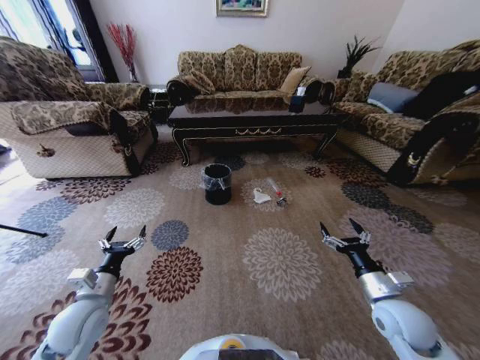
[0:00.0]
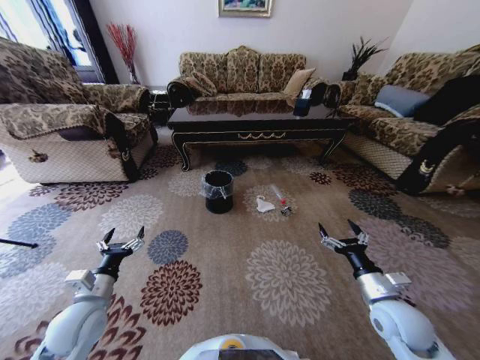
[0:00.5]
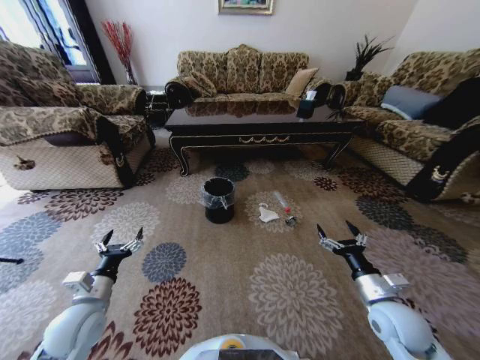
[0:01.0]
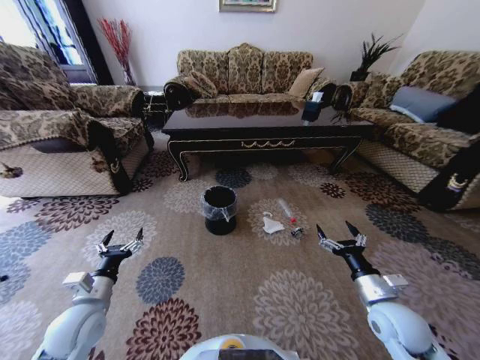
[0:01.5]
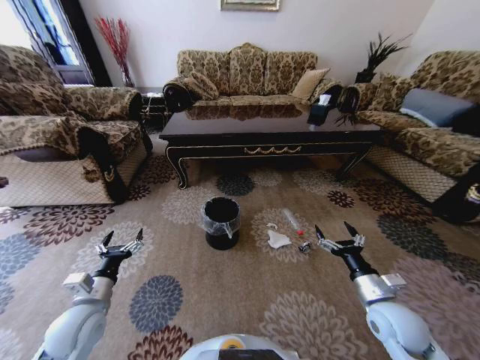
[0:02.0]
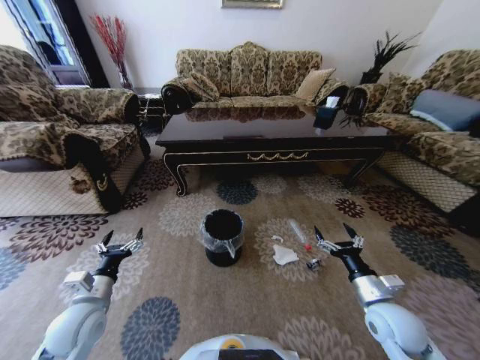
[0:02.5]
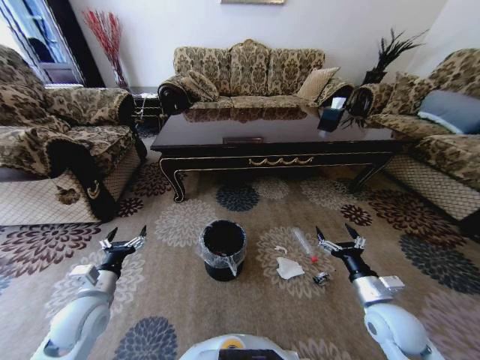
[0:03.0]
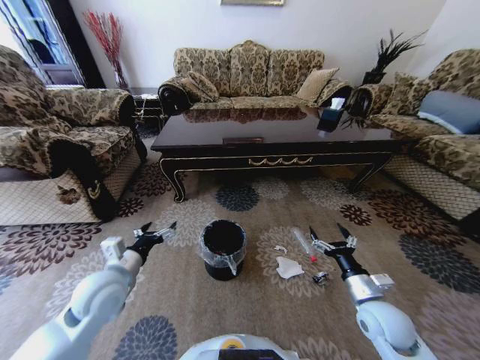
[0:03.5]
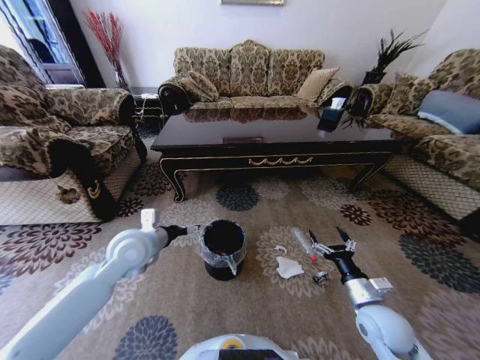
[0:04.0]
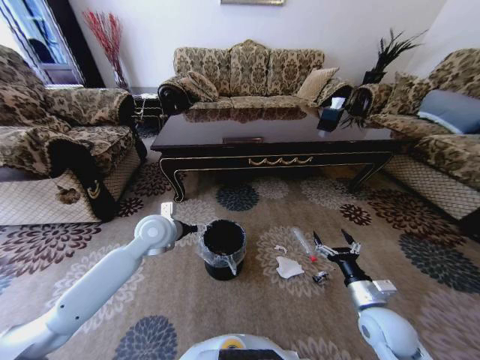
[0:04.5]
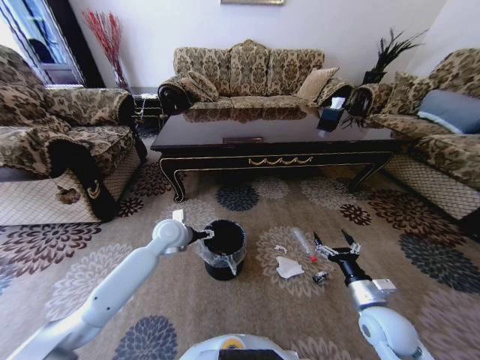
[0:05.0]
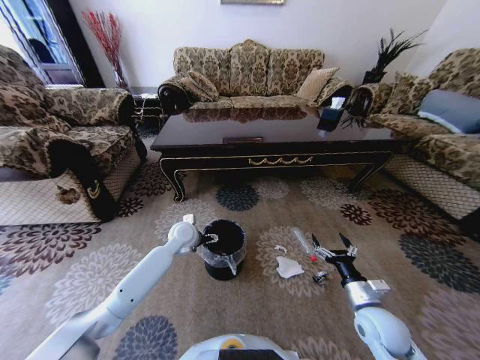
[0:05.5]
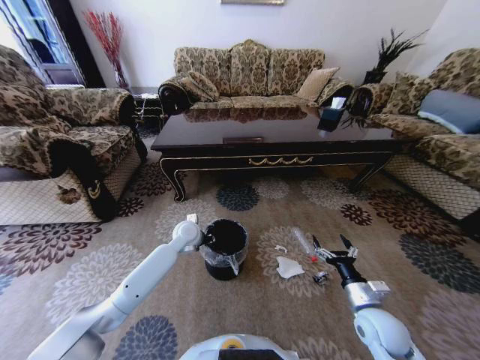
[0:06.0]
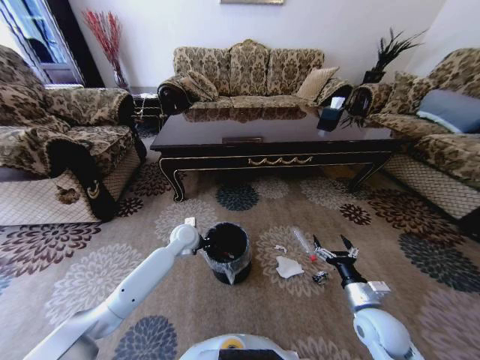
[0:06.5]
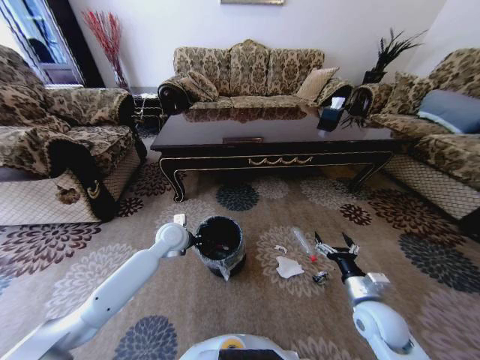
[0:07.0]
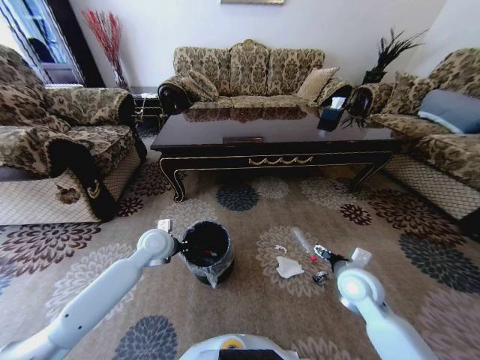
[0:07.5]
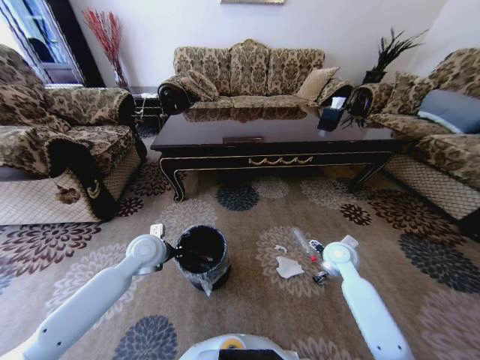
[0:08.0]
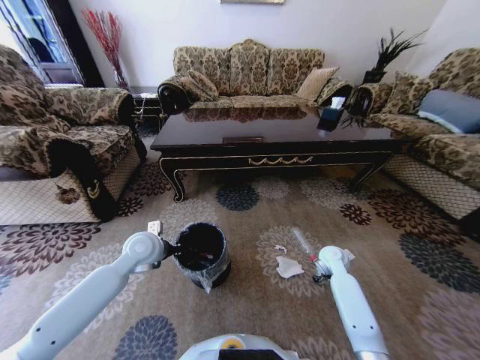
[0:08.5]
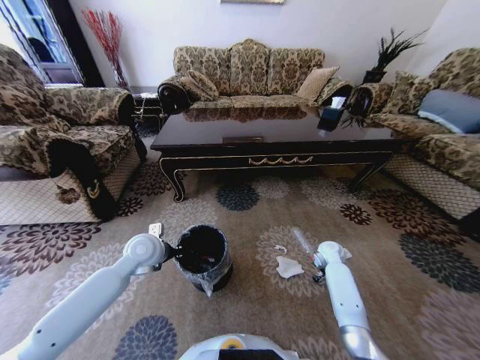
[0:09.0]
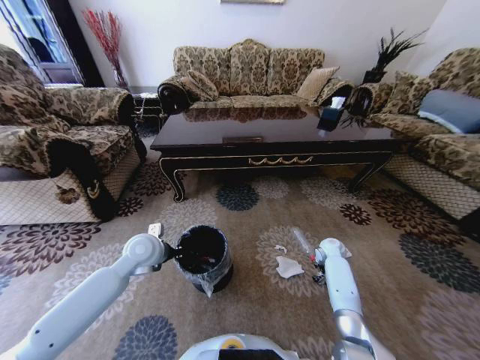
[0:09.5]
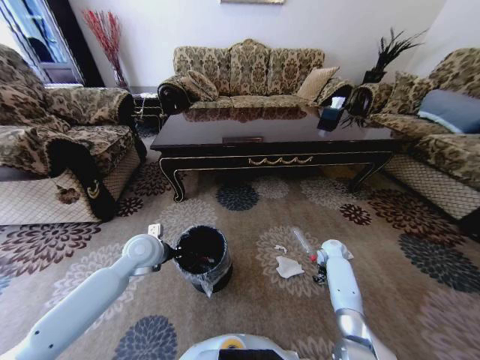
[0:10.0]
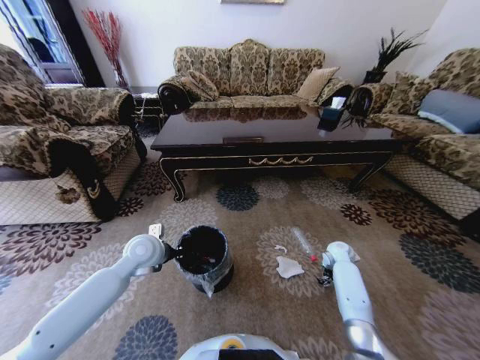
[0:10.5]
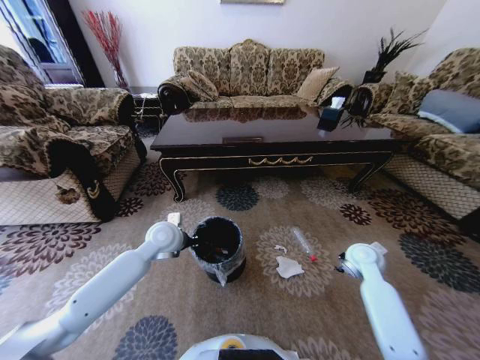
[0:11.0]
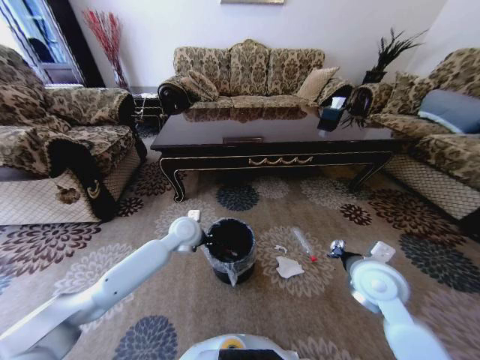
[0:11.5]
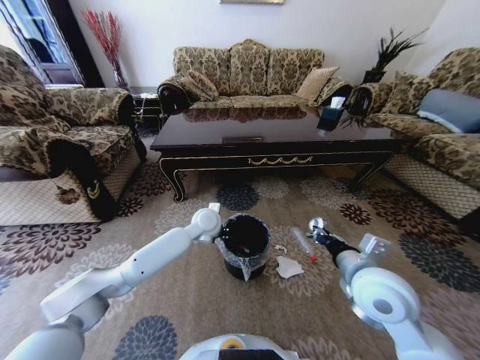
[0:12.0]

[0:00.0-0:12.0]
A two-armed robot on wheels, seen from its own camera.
Task of the whole recording: Move to the front of the table and pick up the trash from the floor, then place it into the trash bin.
0:02.0 to 0:04.0: The left gripper moves forward, upward and to the right, about 20 cm.
0:04.0 to 0:06.0: The left gripper goes roughly 20 cm forward, downward and to the right, and closes its fingers.
0:06.0 to 0:08.0: The left gripper moves backward, to the left and upward, approximately 15 cm, and closes, while the right gripper moves forward, about 15 cm.
0:08.0 to 0:10.0: The right gripper travels downward, forward and to the right by about 20 cm, and closes.
0:10.0 to 0:12.0: The right gripper heads upward, backward and to the left, covering some 40 cm; the left gripper travels to the right and forward by some 20 cm.

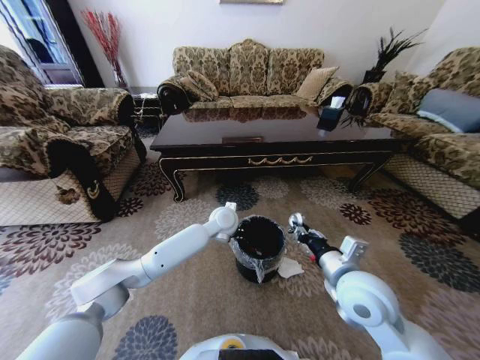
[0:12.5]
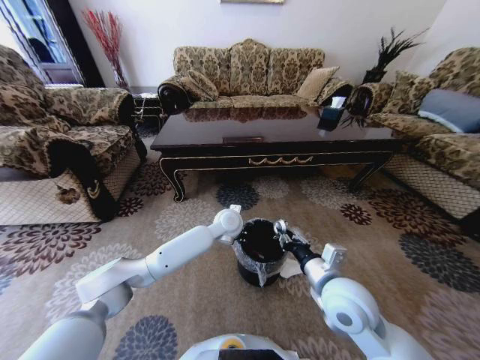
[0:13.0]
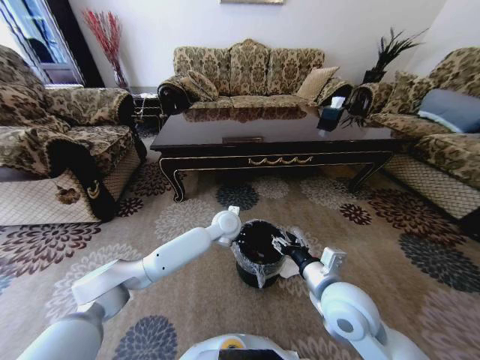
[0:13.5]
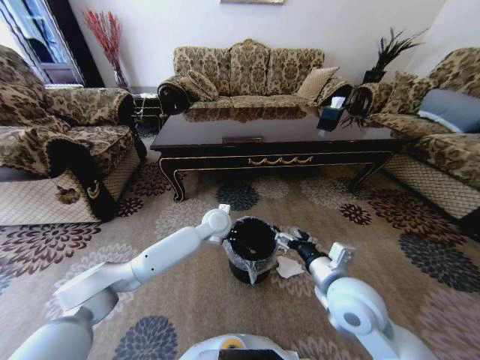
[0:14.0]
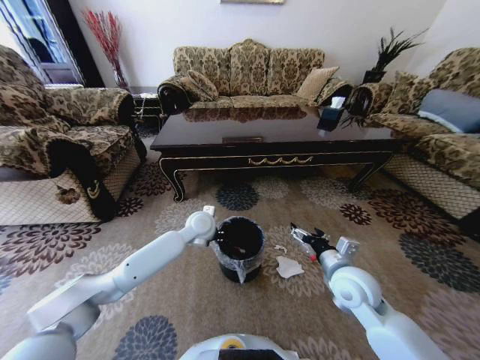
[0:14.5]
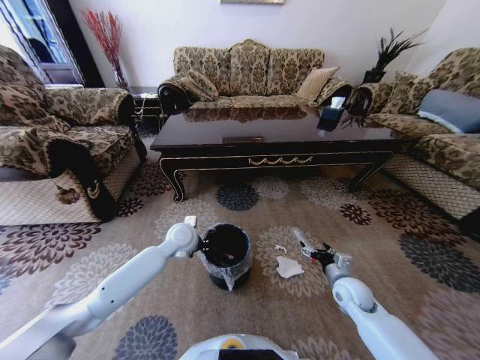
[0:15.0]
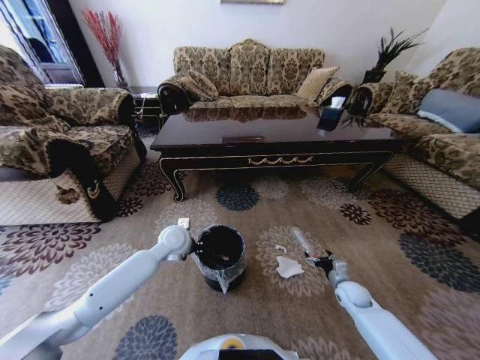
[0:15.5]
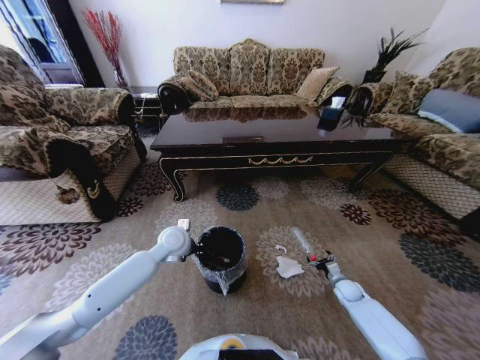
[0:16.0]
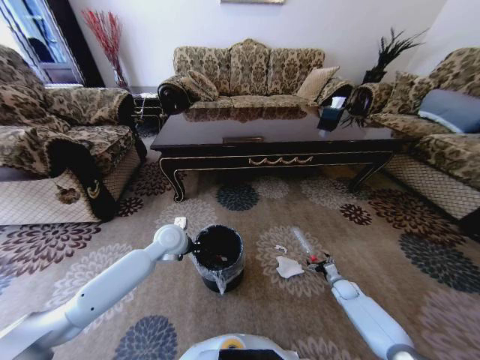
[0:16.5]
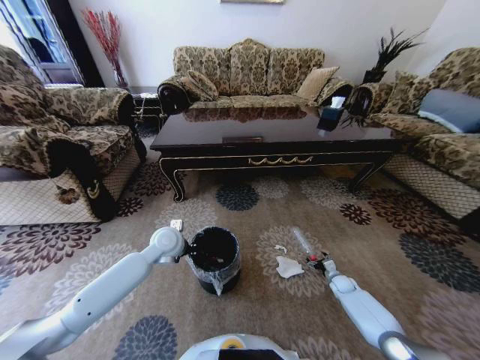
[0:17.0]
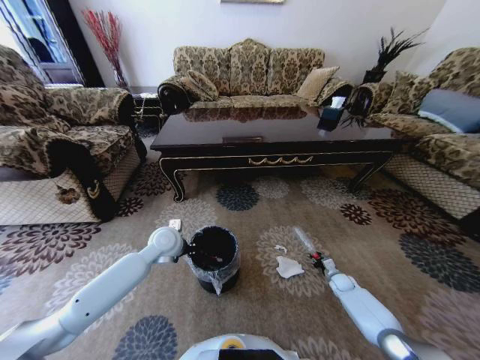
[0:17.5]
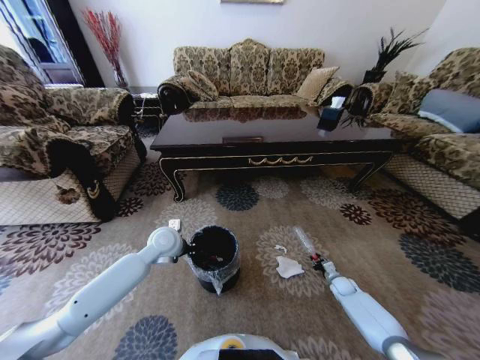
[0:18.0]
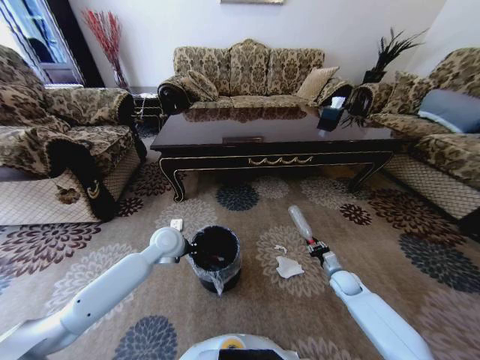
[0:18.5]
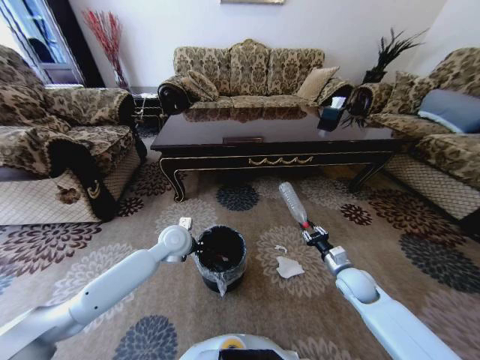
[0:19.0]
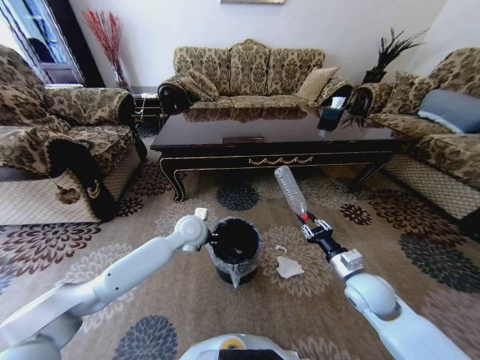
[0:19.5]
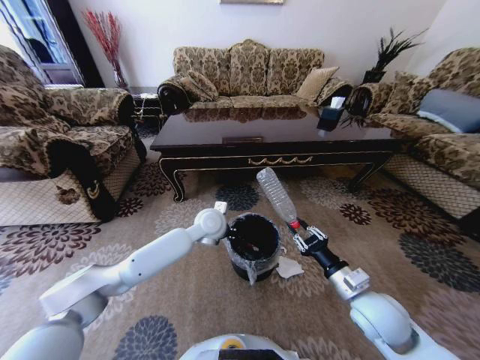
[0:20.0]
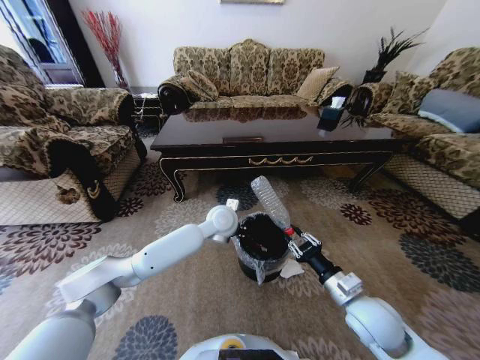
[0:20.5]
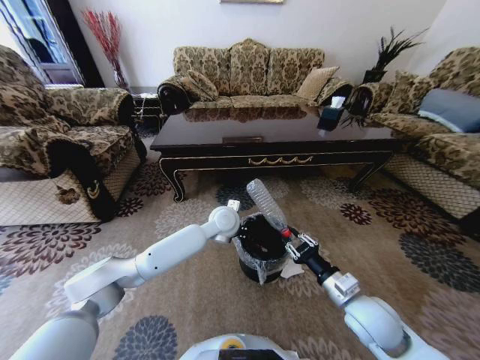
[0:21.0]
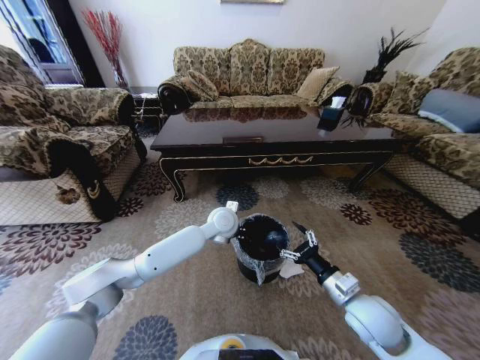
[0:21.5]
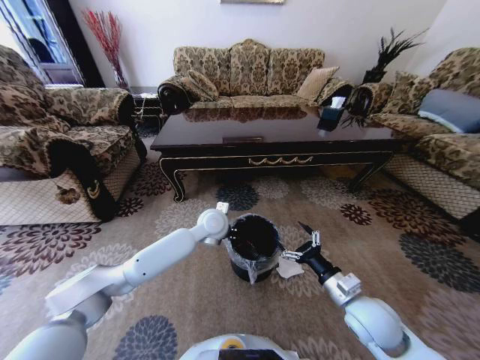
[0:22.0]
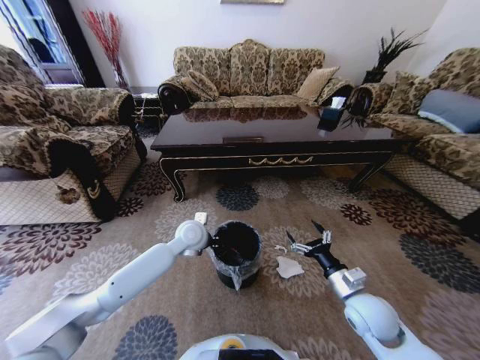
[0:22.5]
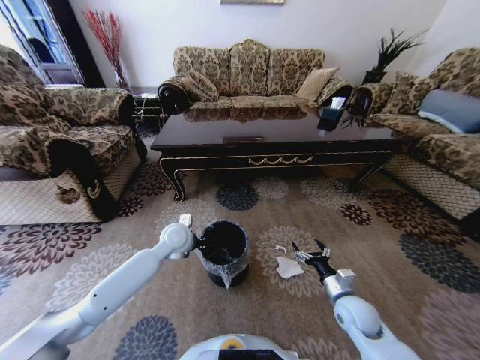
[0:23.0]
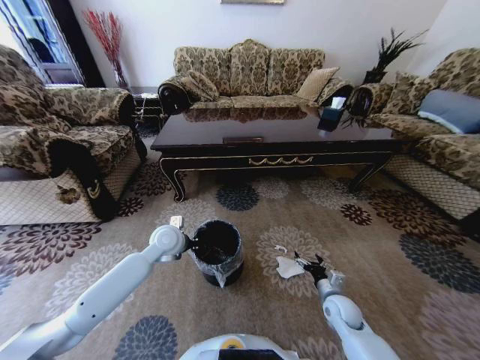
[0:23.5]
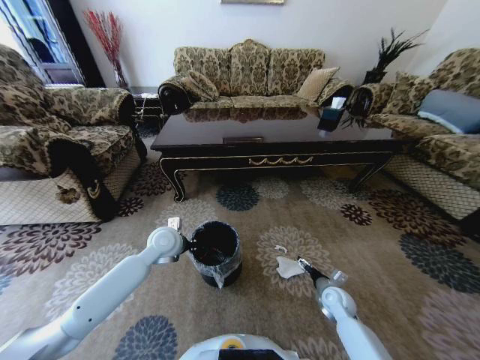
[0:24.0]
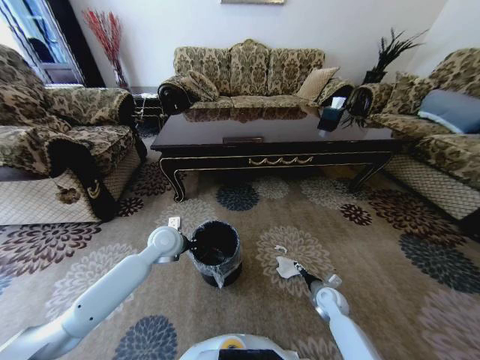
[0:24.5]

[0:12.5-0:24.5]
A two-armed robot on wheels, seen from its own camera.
Task of the whole recording: Move to the front of the table and pick up the trash from the floor, then place it into the trash bin.
0:12.5 to 0:14.5: The right gripper goes about 5 cm downward, and opens, while the left gripper heads to the left, covering approximately 10 cm.
0:14.5 to 0:16.5: The right gripper is displaced downward and to the right by some 35 cm, while the left gripper goes about 10 cm to the left.
0:16.5 to 0:18.5: The right gripper moves upward, approximately 10 cm, and closes up.
0:18.5 to 0:20.5: The left gripper heads to the right, covering some 15 cm, while the right gripper heads upward, backward and to the left, covering about 25 cm.
0:20.5 to 0:22.5: The right gripper opens; the left gripper is displaced to the left by roughly 10 cm.
0:22.5 to 0:24.5: The right gripper moves downward and forward, about 20 cm. The left gripper moves to the left, roughly 5 cm.

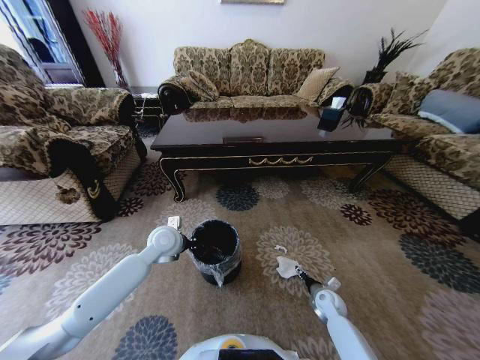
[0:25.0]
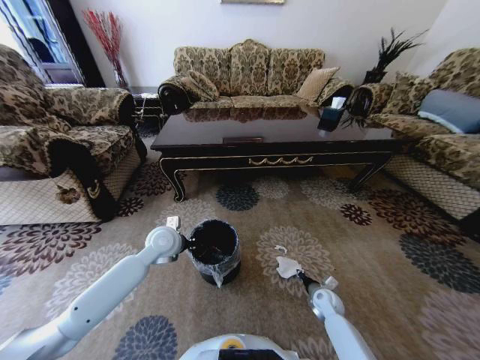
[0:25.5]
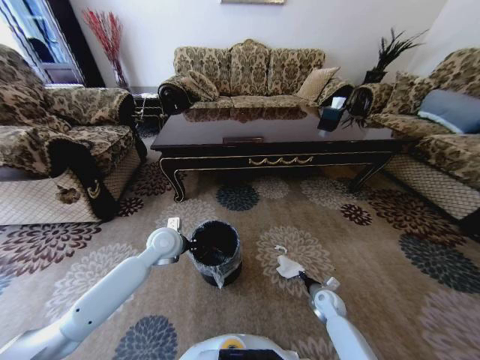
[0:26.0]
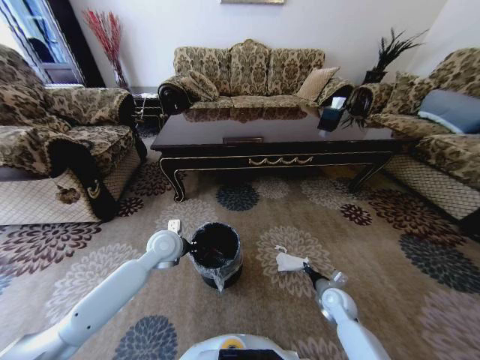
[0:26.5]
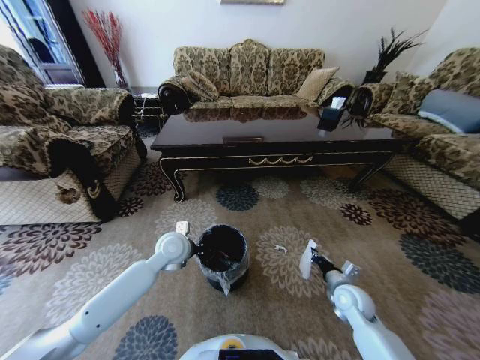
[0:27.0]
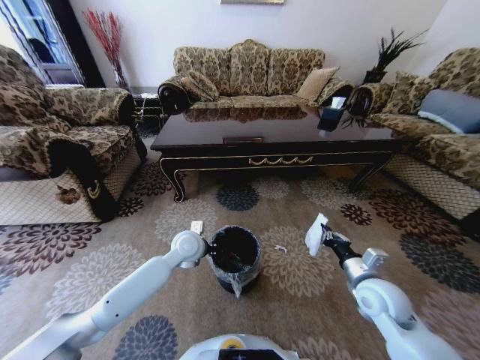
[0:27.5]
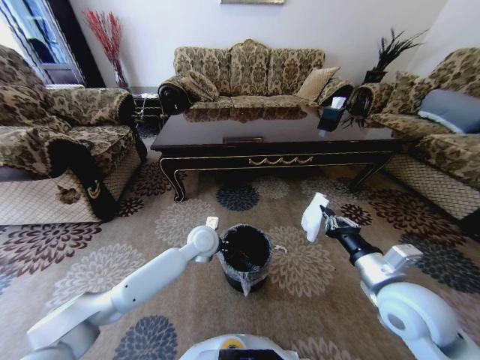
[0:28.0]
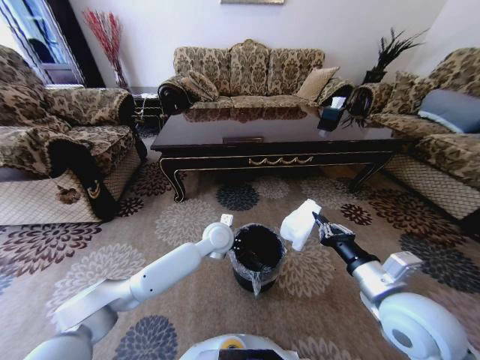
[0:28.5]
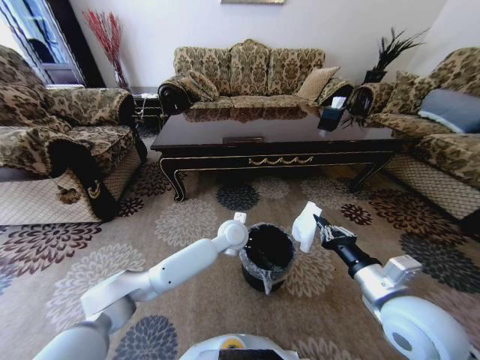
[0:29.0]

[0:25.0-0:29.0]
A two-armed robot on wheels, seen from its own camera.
Task of the whole recording: Move to the front of the table and pick up the trash from the floor, then place it into the trash bin.
0:25.0 to 0:27.0: The right gripper travels upward by some 15 cm, and closes.
0:27.0 to 0:29.0: The right gripper shifts about 20 cm upward and backward; the left gripper is displaced to the right by roughly 20 cm.
